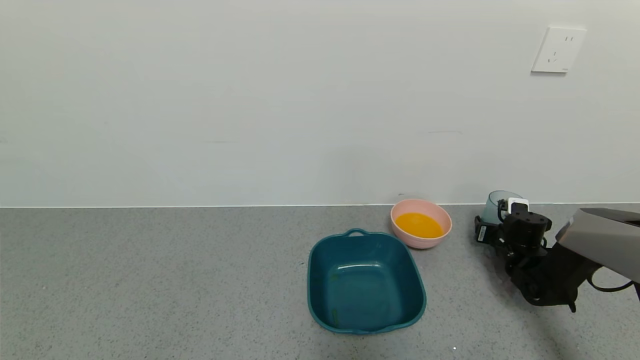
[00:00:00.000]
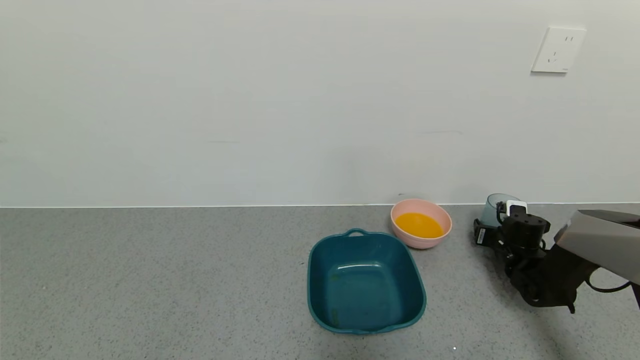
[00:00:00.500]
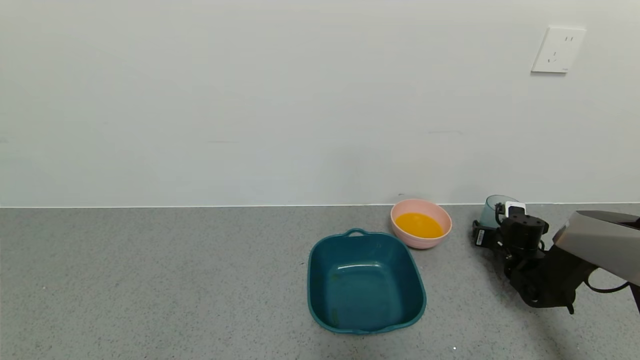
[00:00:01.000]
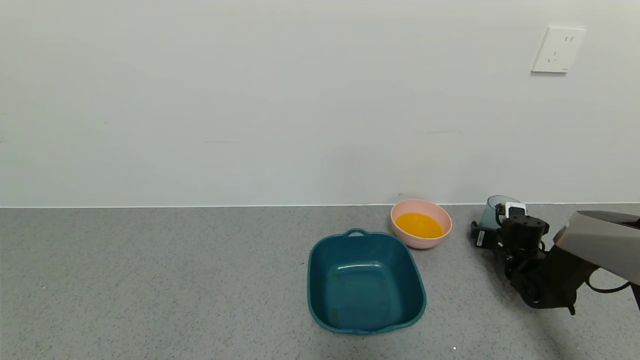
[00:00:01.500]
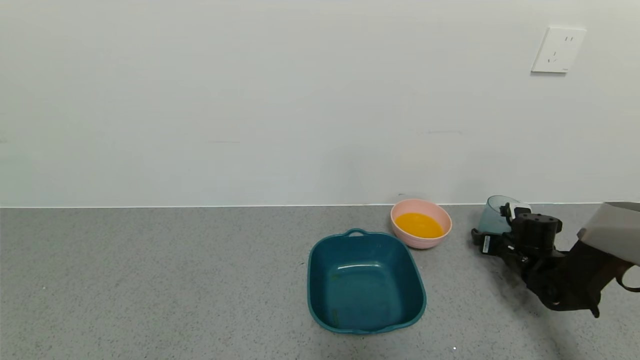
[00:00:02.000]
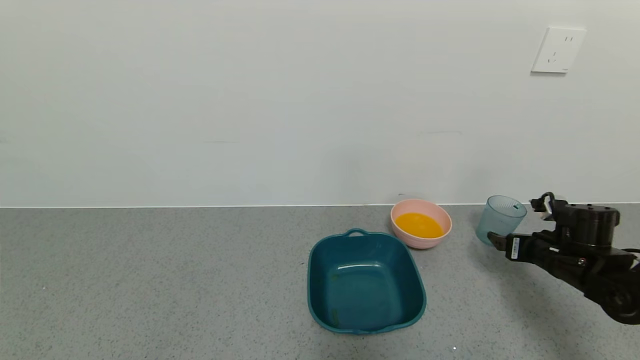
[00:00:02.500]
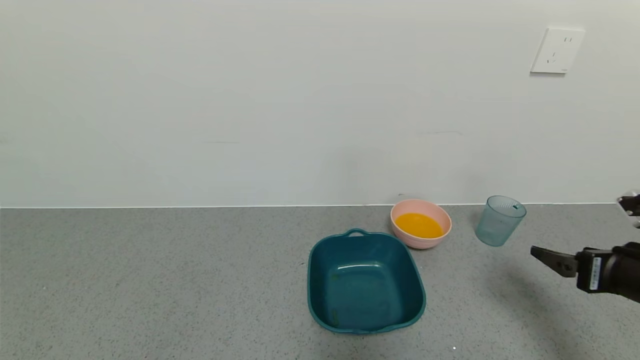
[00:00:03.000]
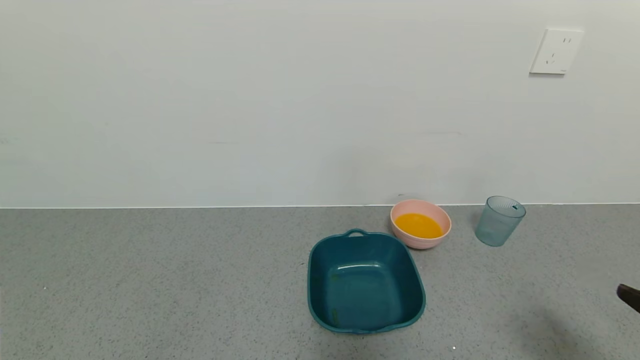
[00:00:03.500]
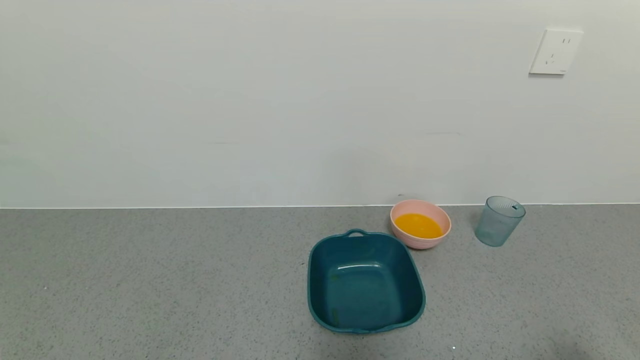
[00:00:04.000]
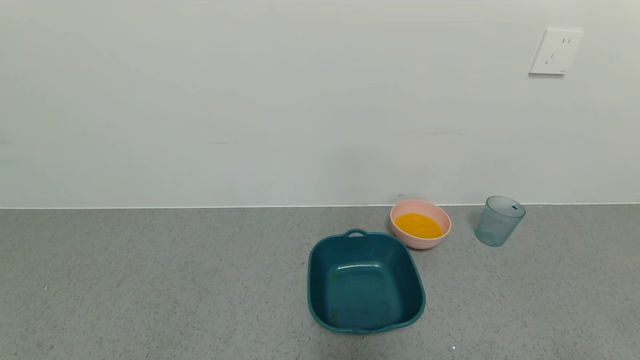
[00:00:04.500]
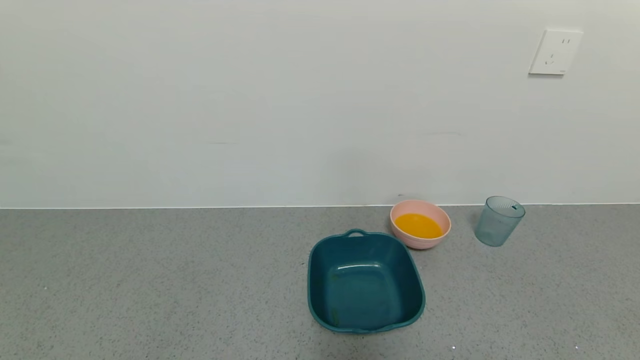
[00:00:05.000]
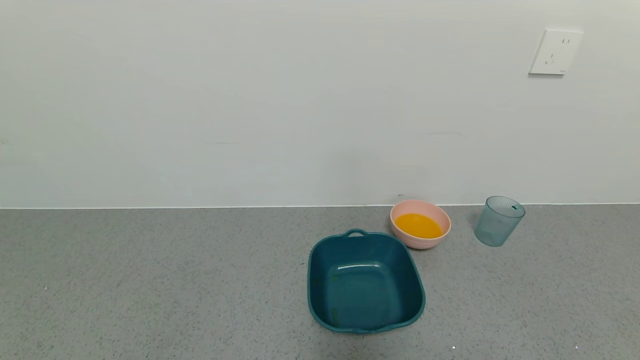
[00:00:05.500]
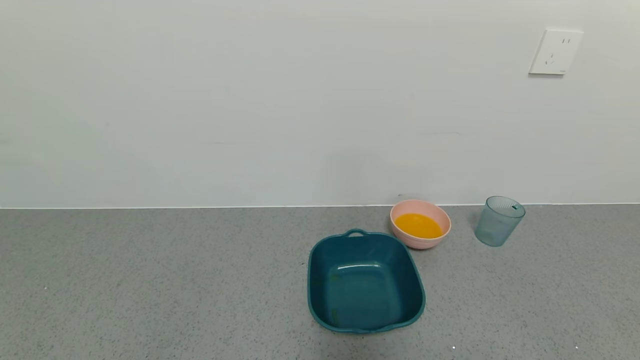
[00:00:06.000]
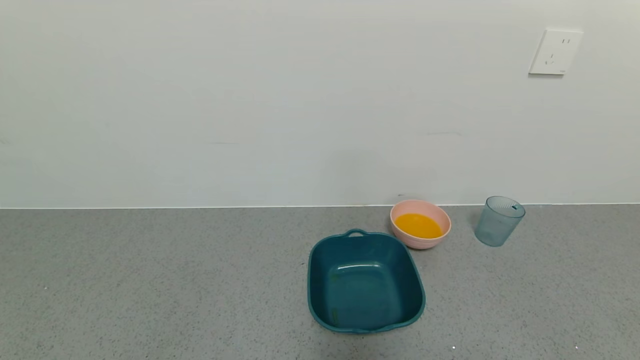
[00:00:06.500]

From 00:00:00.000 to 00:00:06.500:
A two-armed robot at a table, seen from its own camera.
Task of the whole recording: use a gripper to pick up the cup and pour the liquid into a bowl or tray.
From 00:00:00.000 to 00:00:02.000: The right gripper opens its fingers.
From 00:00:02.000 to 00:00:04.500: The right gripper moves backward and upward, about 50 cm.
